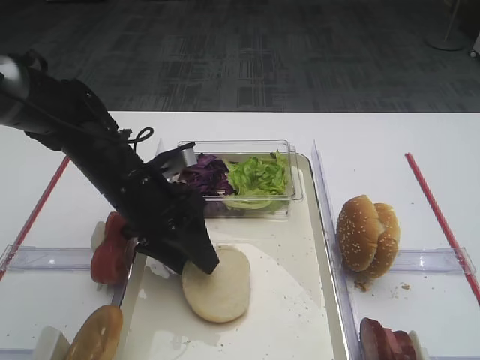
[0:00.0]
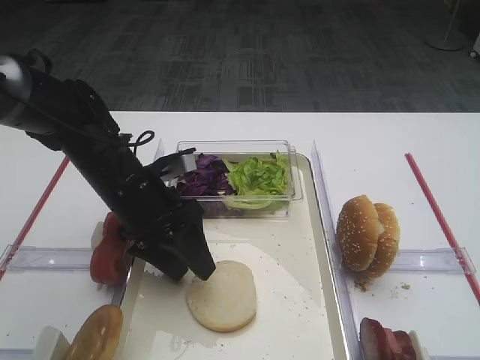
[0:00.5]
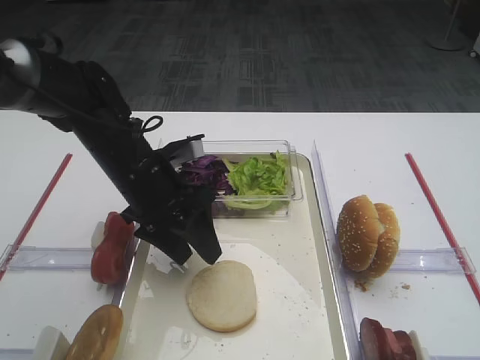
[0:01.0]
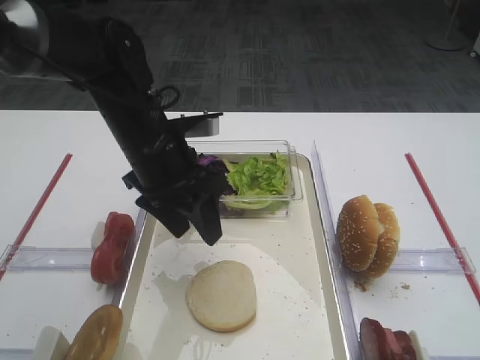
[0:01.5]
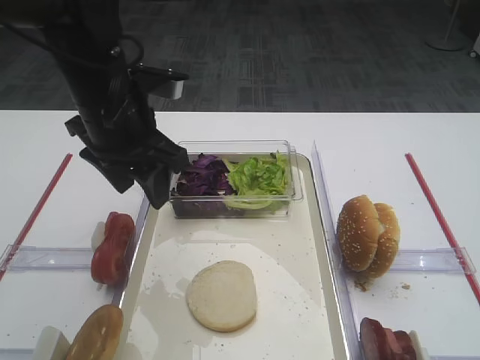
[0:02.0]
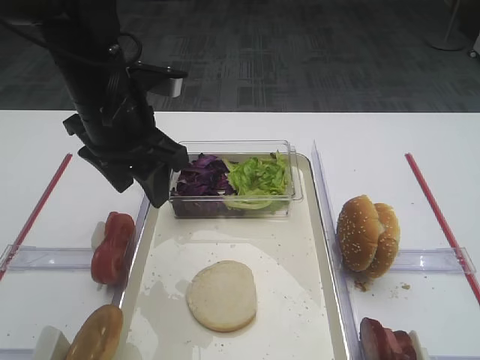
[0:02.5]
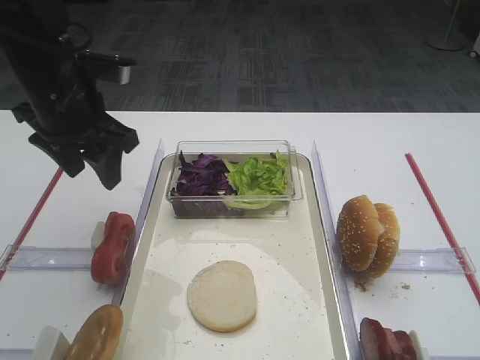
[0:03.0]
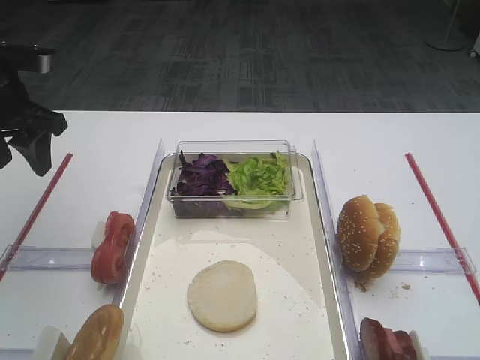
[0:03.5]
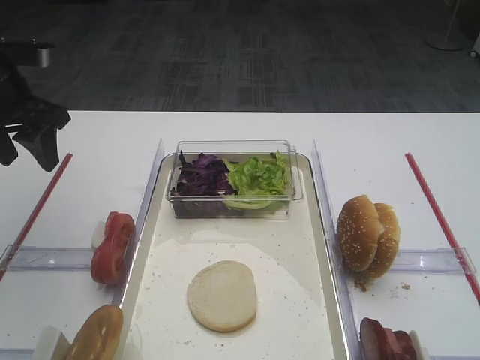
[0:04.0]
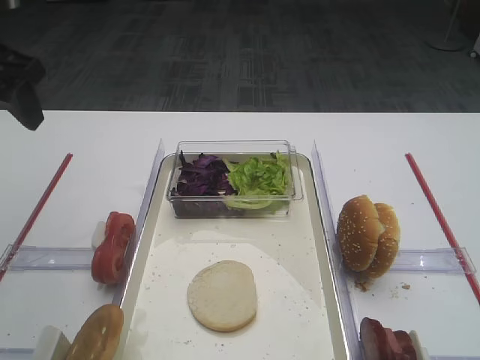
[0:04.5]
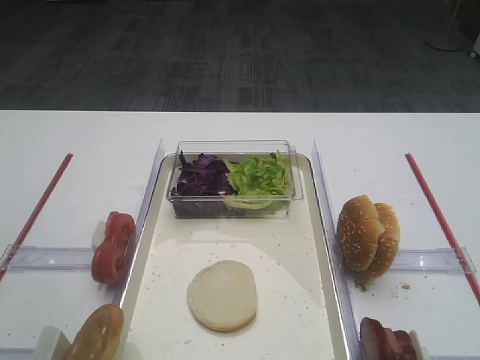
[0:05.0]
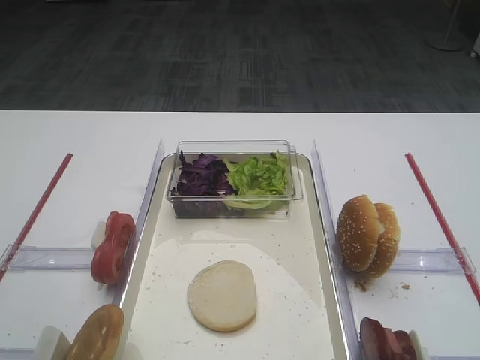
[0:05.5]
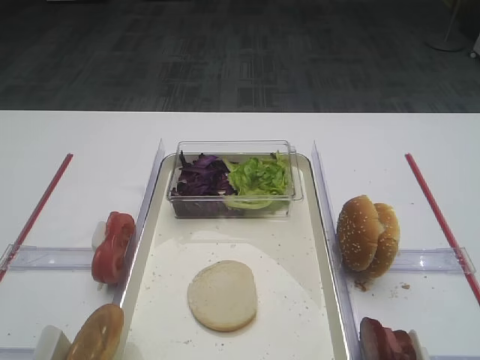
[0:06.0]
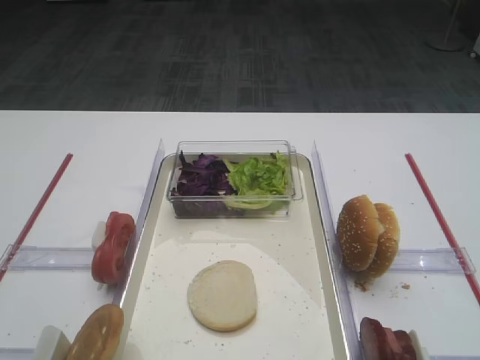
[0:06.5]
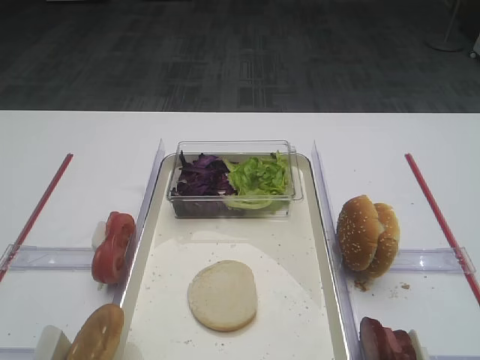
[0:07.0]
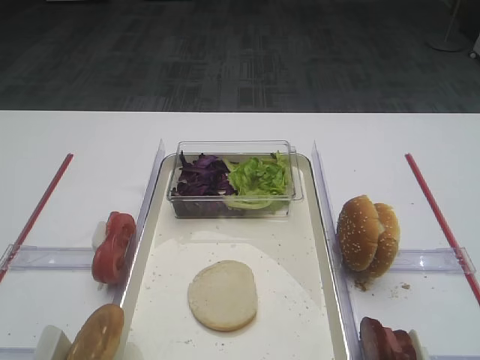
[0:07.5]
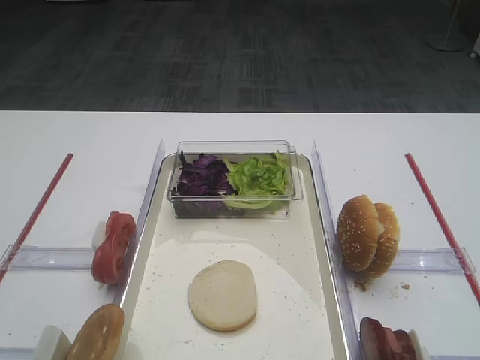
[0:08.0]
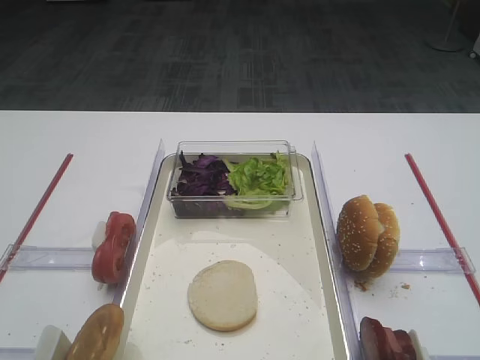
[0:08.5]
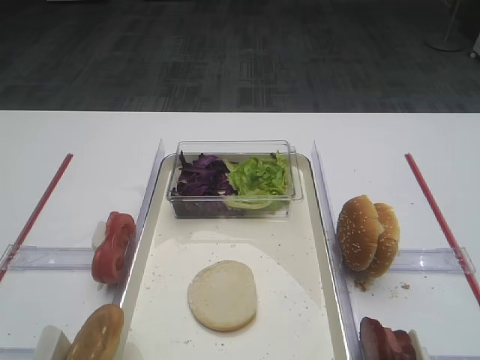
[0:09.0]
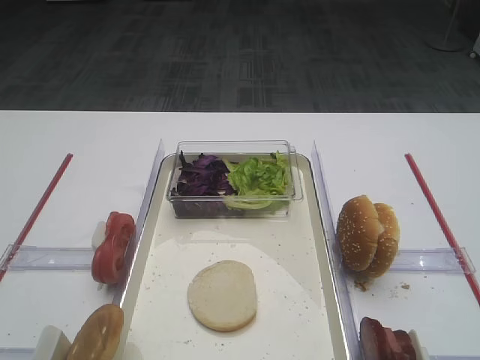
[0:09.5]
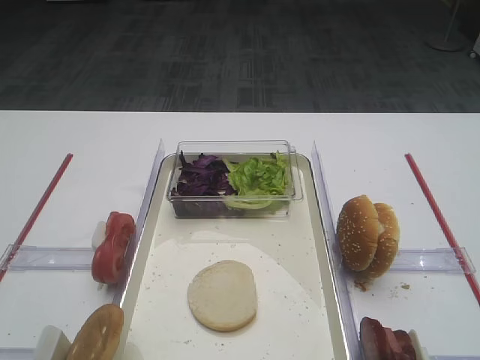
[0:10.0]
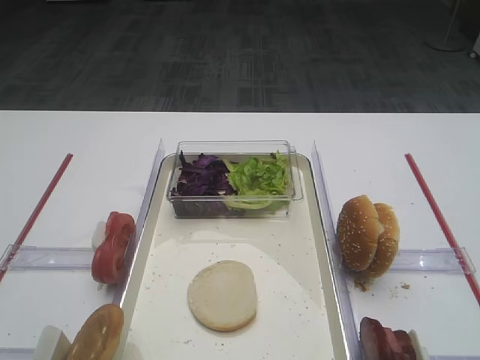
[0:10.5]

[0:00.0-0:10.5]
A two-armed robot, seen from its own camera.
0:00.0 to 0:02.0: The left gripper is displaced upward by about 10 cm.
0:02.0 to 0:04.0: The left gripper is displaced to the left by about 15 cm.
0:04.0 to 0:06.5: The left gripper moves backward, some 35 cm.
0:08.5 to 0:10.5: Neither gripper changes place.

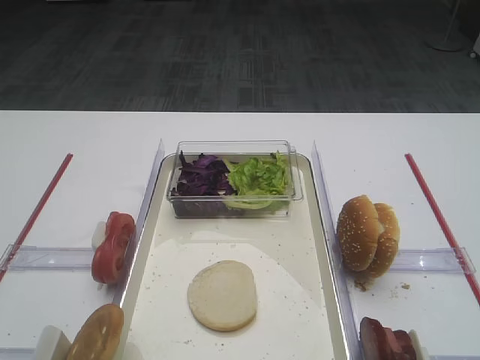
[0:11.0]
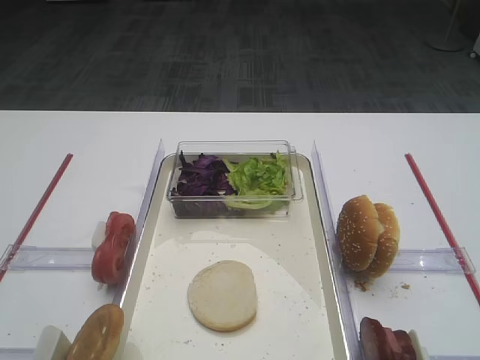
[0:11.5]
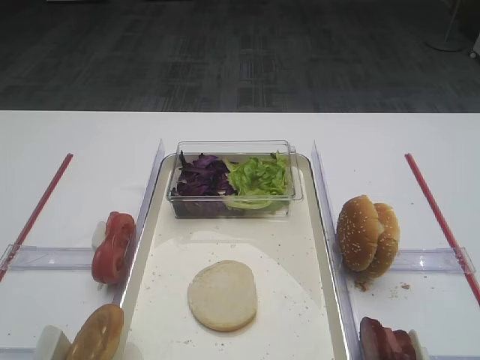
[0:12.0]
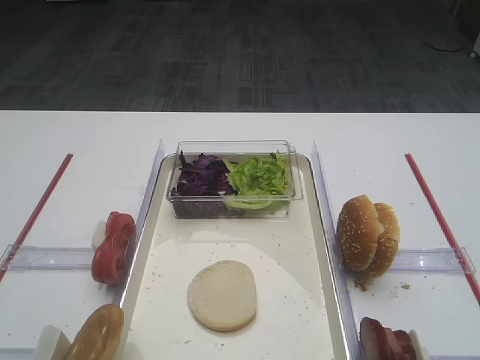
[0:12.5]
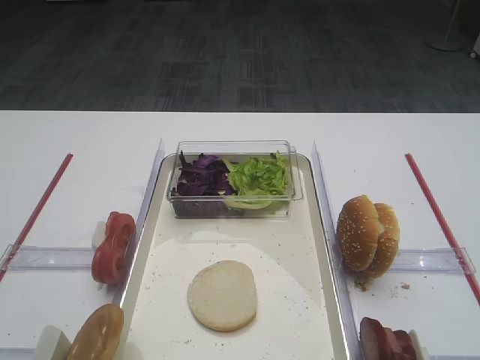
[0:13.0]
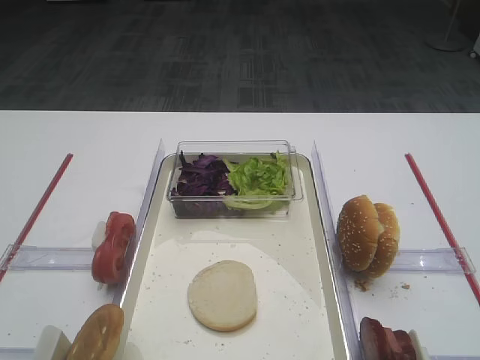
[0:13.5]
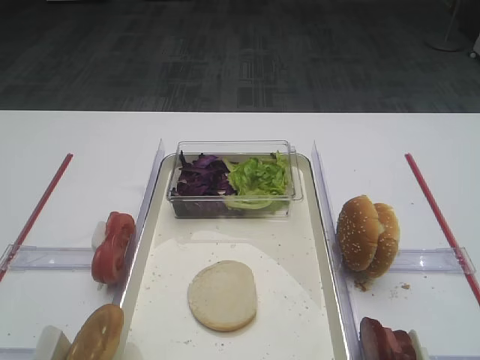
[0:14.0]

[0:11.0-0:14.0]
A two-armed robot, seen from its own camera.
0:11.0 to 0:14.0: Both grippers stay about where they are.

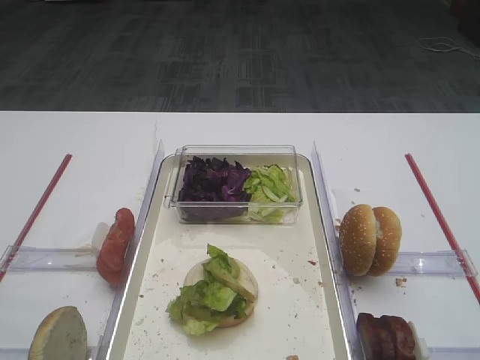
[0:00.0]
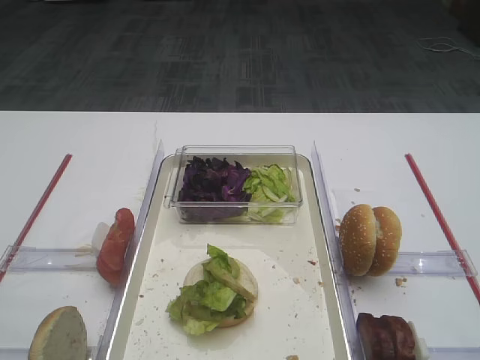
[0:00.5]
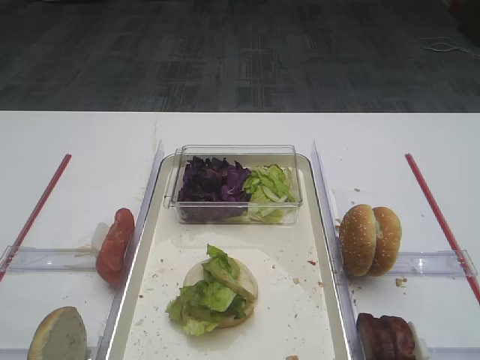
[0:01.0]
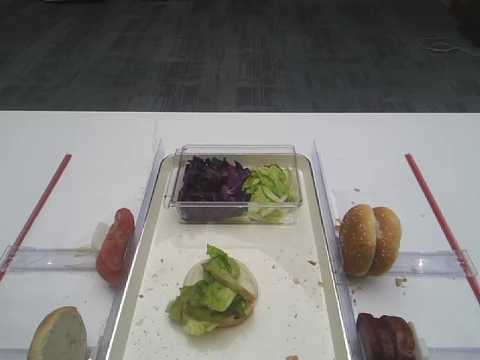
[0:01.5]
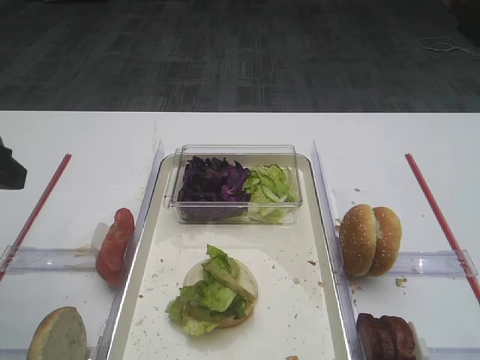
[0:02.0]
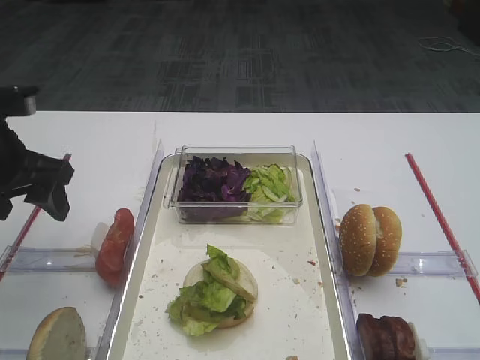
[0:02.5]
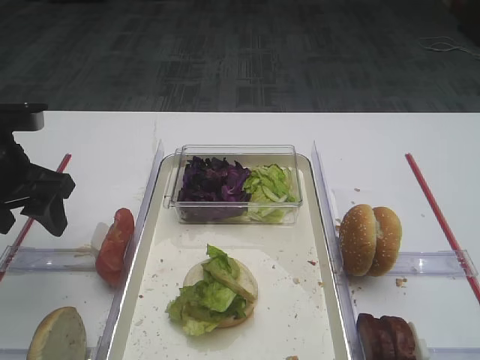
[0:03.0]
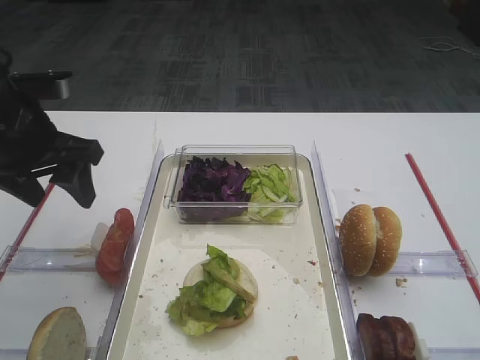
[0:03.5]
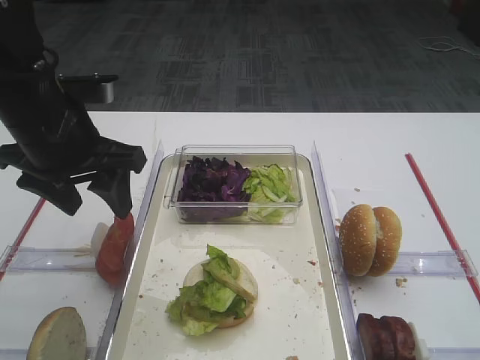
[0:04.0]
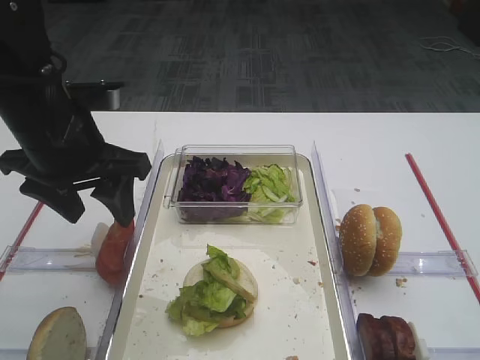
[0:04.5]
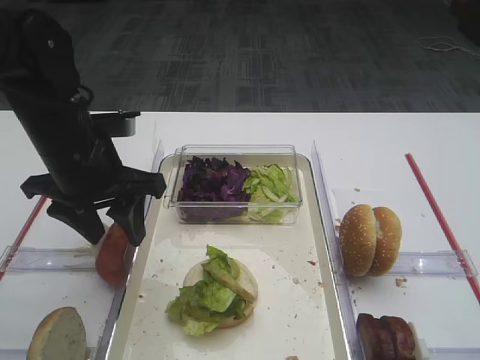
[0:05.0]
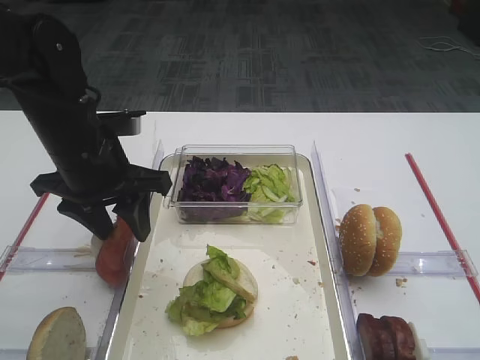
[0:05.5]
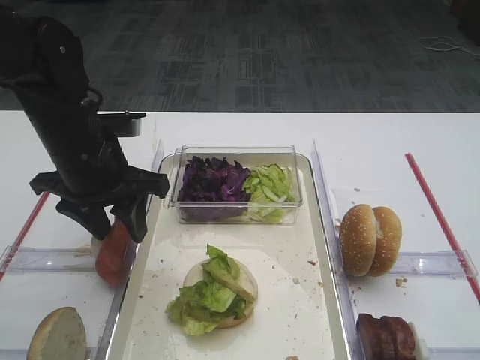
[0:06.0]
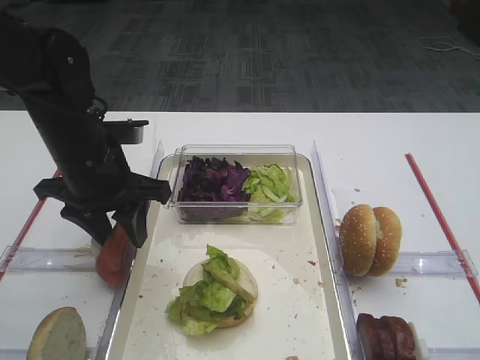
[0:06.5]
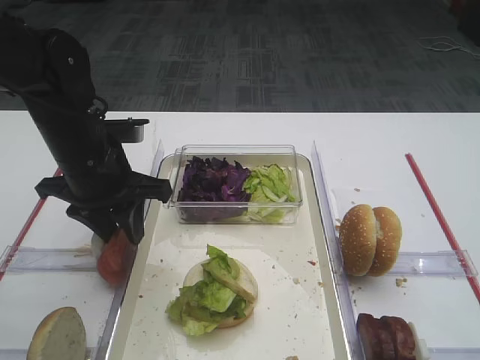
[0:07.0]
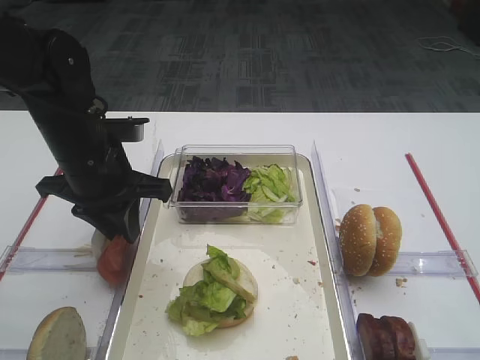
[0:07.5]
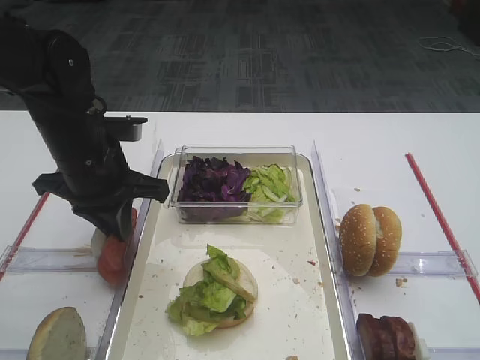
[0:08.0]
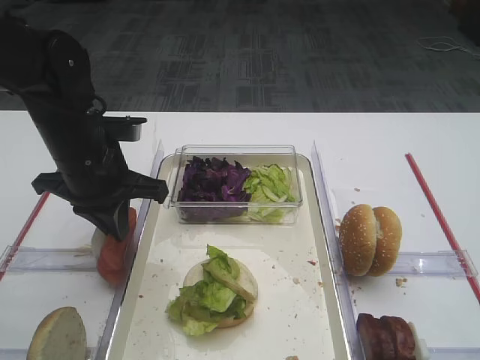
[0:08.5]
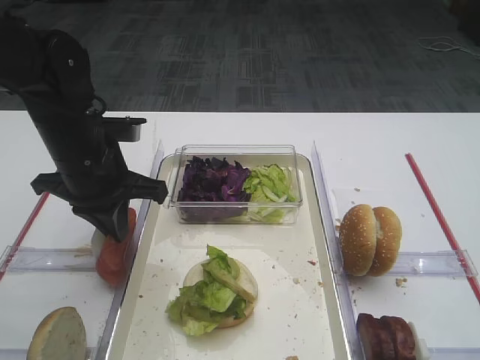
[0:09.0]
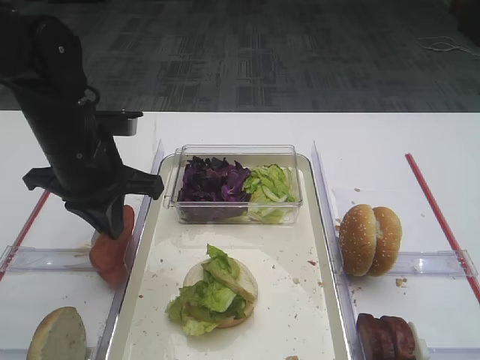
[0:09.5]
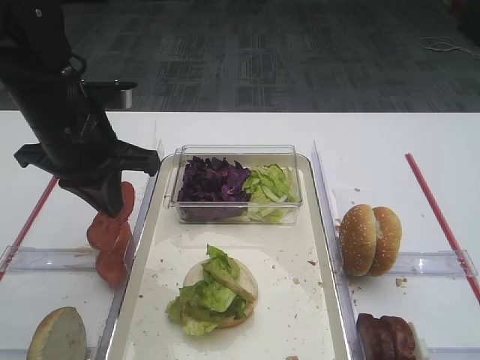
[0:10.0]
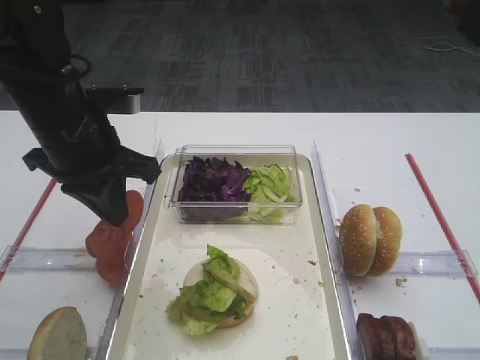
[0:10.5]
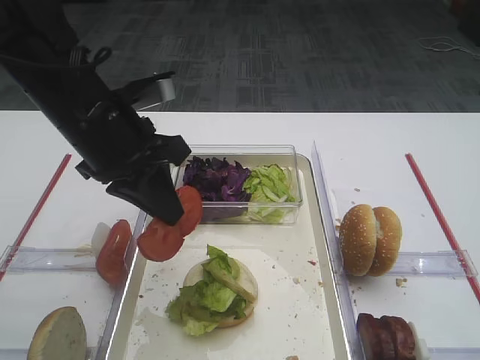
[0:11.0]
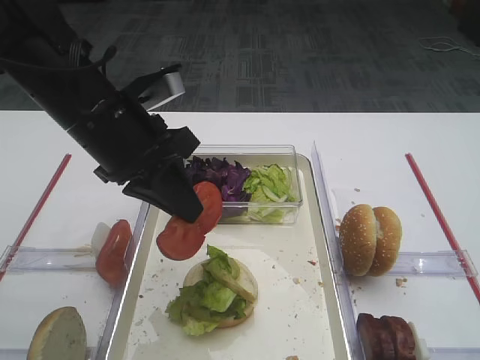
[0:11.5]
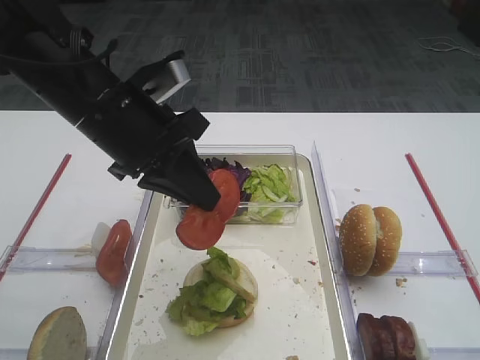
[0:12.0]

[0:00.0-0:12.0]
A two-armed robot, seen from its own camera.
Step, 0:00.0 to 0:10.0: Pick up the tomato slice with the left gripper.
0:02.0 to 0:04.0: The left gripper moves forward and to the right, about 15 cm.
0:04.0 to 0:06.0: The left gripper moves some 5 cm.
0:06.0 to 0:08.0: The left gripper closes up.
0:08.0 to 0:10.0: The grippers move only a little.
0:10.0 to 0:12.0: The left gripper ends up about 5 cm from where it was.
